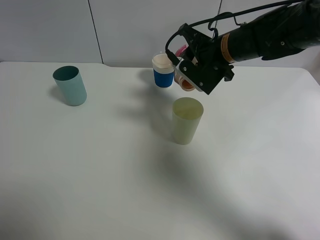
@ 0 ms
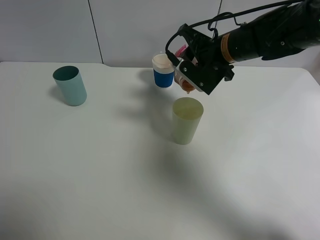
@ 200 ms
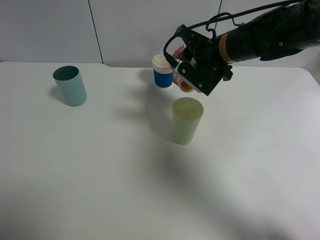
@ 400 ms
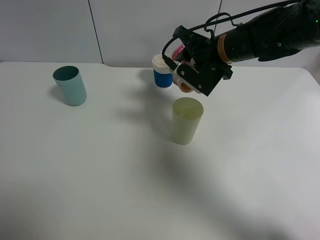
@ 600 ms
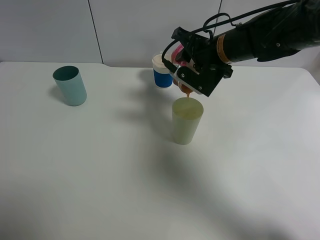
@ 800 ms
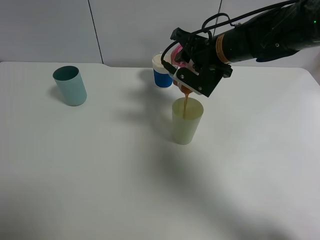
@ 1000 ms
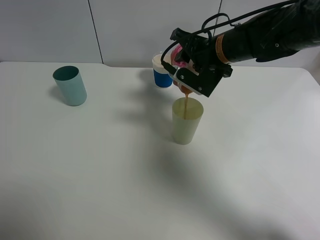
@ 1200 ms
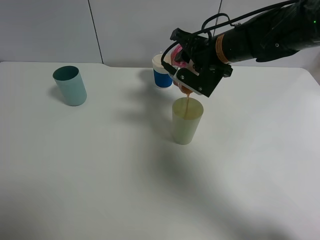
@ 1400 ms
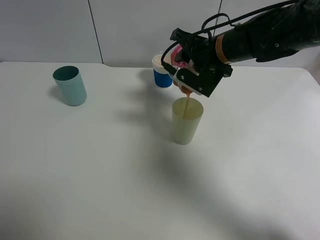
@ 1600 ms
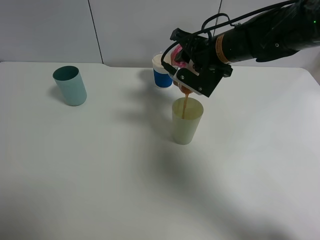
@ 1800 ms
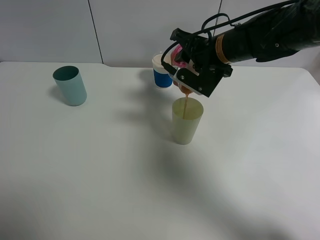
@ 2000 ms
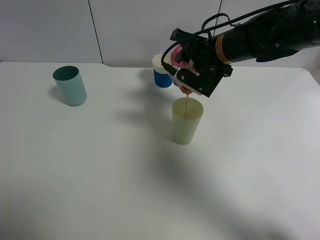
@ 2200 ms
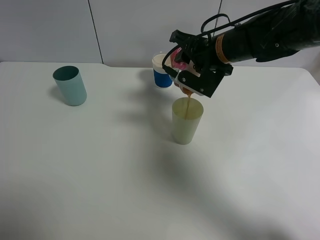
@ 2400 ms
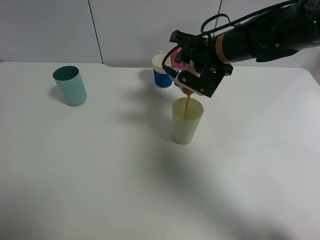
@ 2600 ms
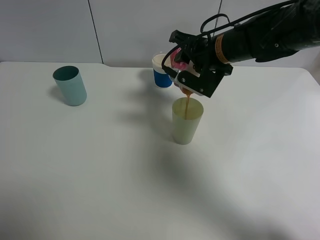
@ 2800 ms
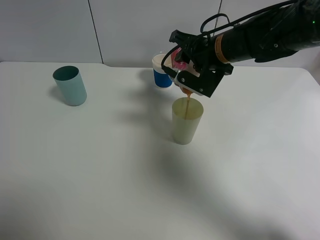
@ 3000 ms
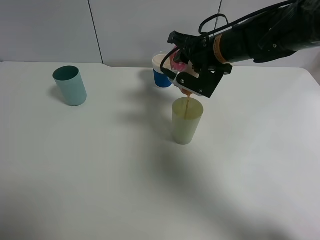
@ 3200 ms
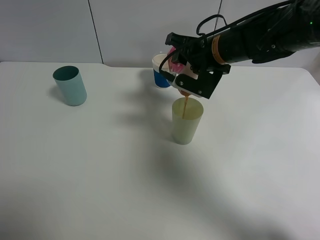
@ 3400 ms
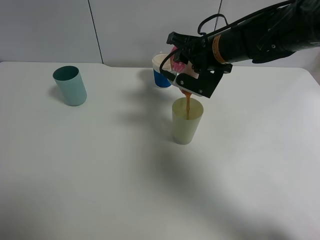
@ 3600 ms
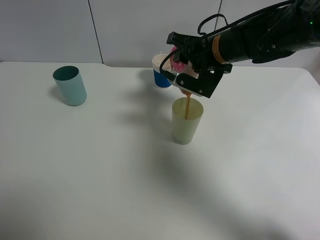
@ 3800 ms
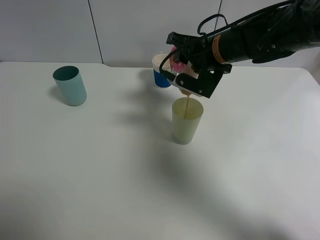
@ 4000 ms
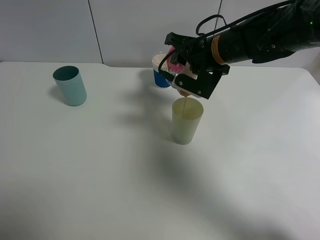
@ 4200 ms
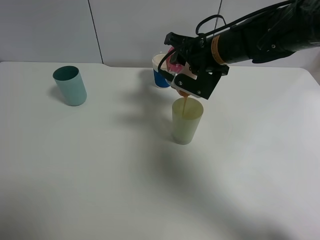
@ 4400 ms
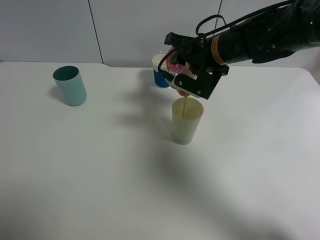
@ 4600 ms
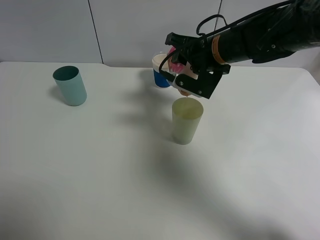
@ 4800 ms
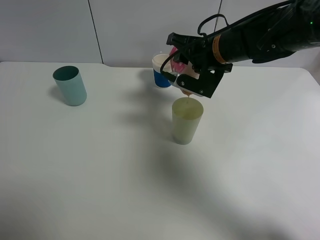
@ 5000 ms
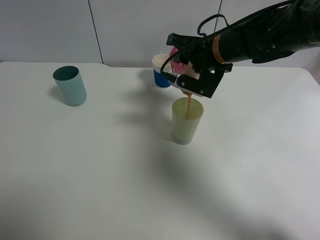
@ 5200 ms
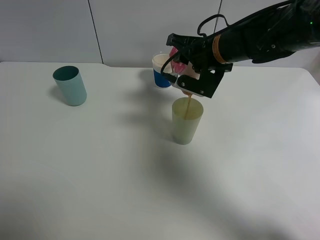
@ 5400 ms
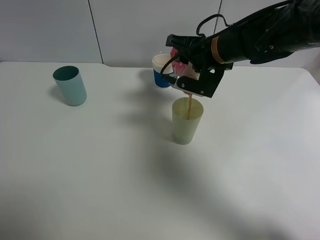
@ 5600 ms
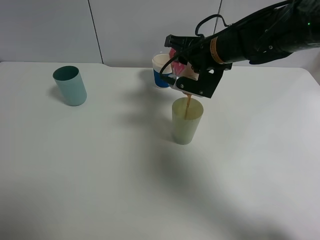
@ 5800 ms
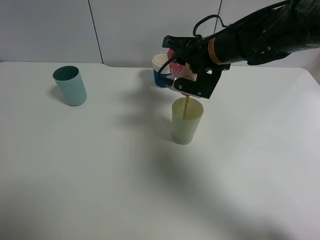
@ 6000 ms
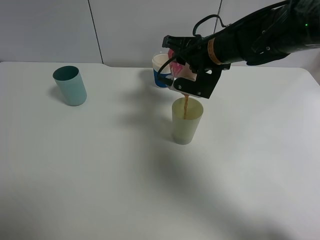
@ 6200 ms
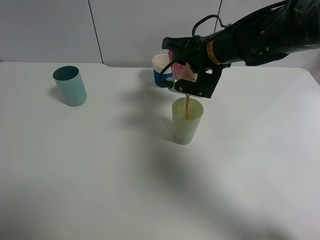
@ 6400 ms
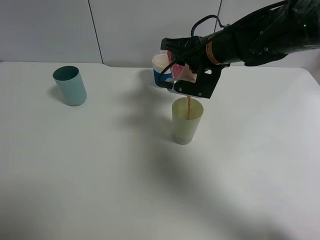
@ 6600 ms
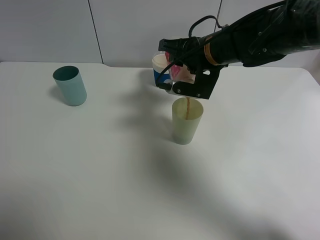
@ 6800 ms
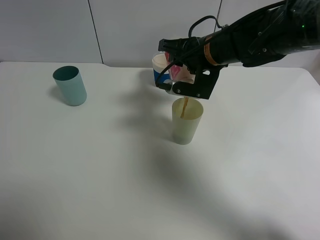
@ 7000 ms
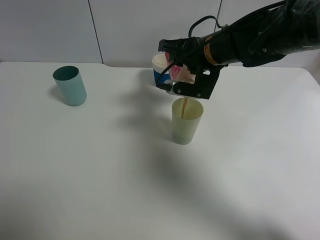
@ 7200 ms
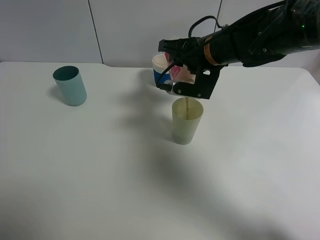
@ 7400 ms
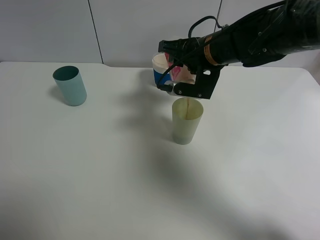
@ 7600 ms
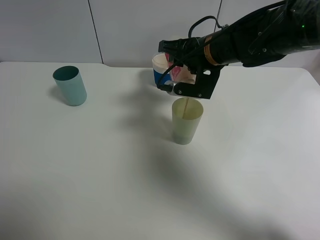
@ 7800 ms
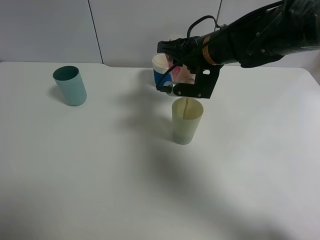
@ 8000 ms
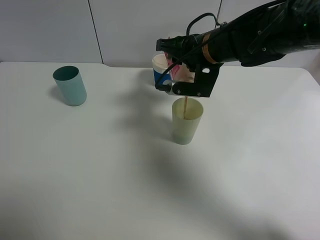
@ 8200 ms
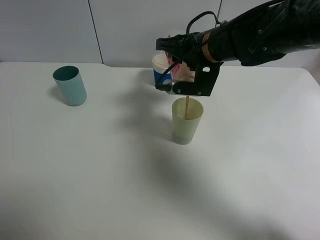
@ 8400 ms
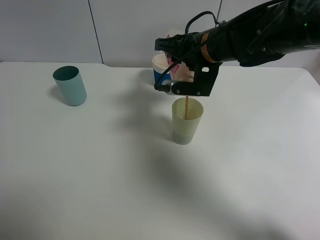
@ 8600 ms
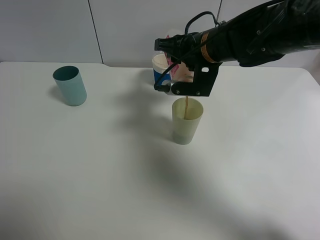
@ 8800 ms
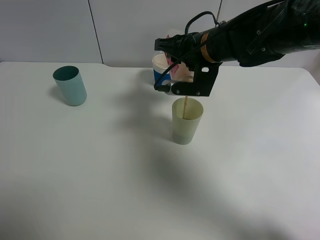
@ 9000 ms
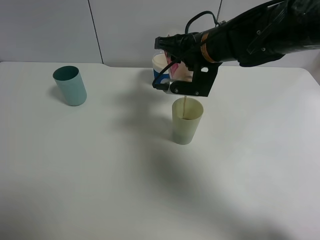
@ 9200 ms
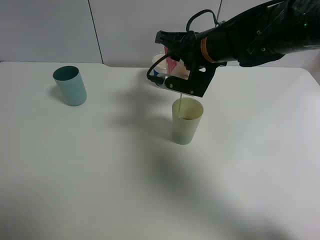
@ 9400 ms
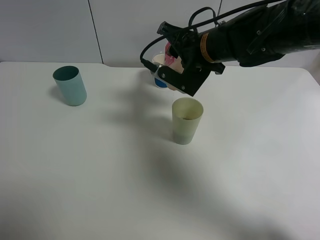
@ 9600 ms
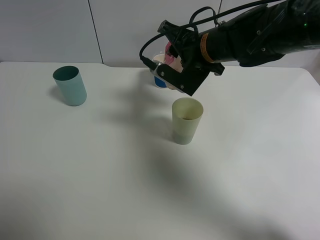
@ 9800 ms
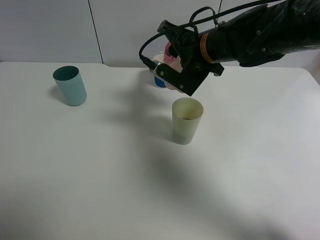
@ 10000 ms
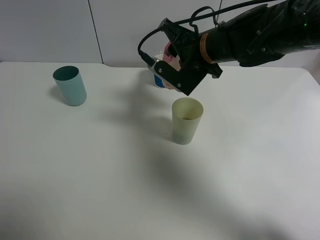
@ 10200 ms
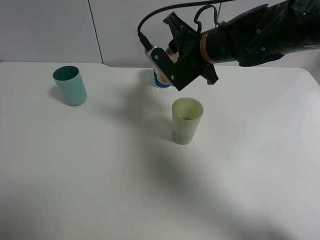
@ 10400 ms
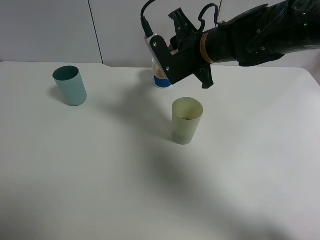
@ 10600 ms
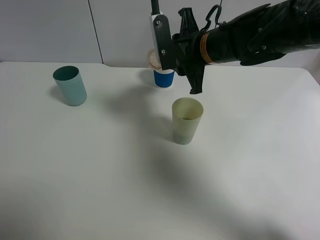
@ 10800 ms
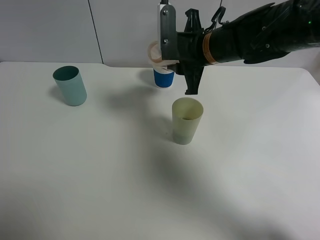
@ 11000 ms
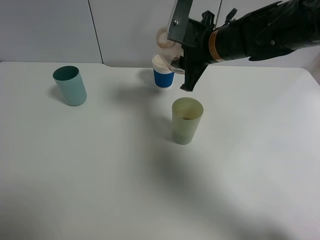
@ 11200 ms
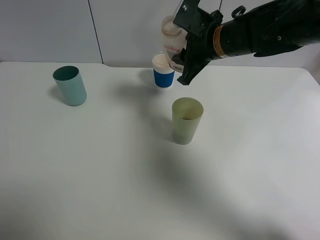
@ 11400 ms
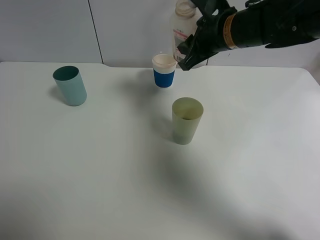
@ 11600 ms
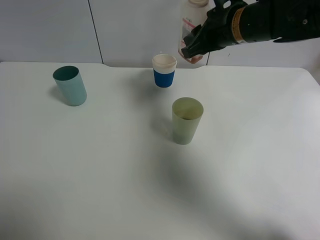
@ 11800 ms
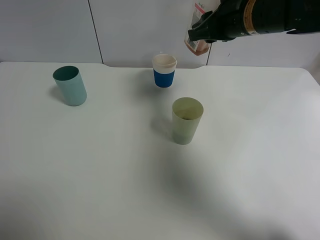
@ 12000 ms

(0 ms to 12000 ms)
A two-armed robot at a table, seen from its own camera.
Task of the whole recording: use a gripper to hold the bottle of the drink and pour it into a random cup.
Step, 0 ms - 9600 ms: Pour the cranberry juice into the cyan cup with the right gripper.
0 ms - 1600 ms: The grippers make only small movements.
1600 ms - 3000 ms: Both grippers stay put.
3000 ms - 4400 ms: The two grippers keep their place.
4400 ms - 9000 ms: The grippers stay close to where they were, moving slightly.
10400 ms - 12000 ms: The right gripper travels to the right and upward by about 10 cm.

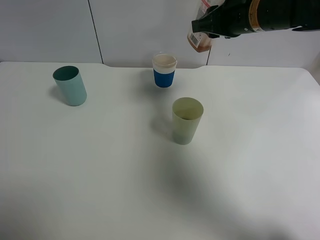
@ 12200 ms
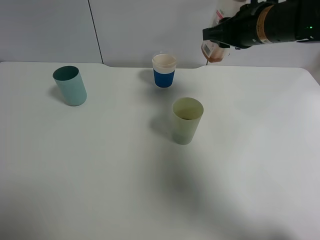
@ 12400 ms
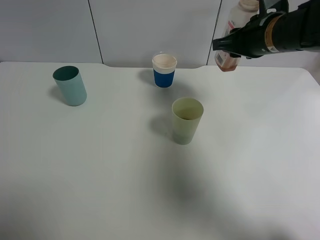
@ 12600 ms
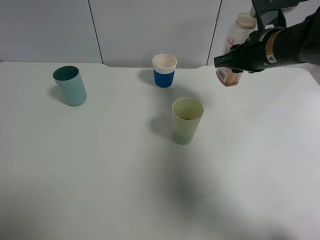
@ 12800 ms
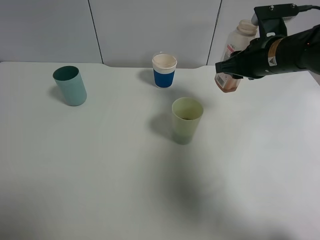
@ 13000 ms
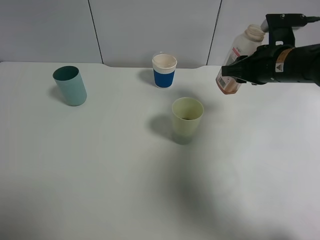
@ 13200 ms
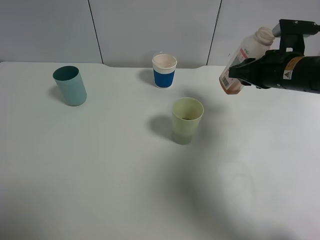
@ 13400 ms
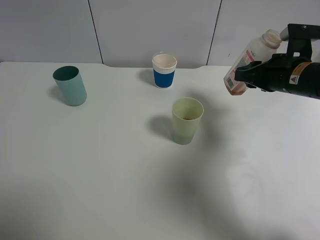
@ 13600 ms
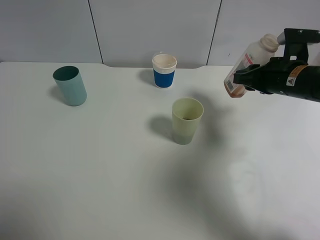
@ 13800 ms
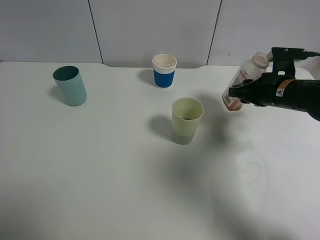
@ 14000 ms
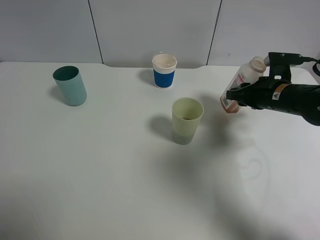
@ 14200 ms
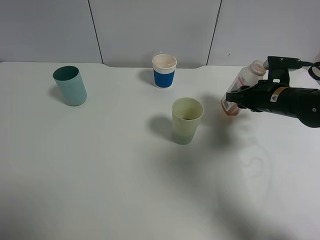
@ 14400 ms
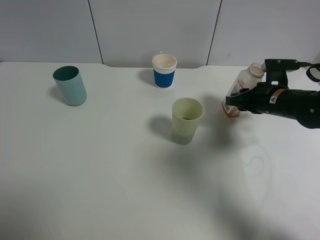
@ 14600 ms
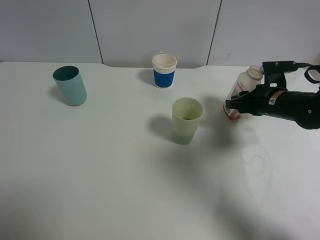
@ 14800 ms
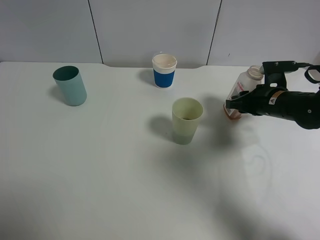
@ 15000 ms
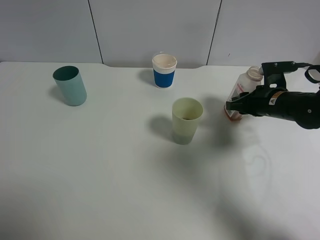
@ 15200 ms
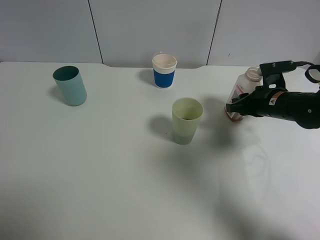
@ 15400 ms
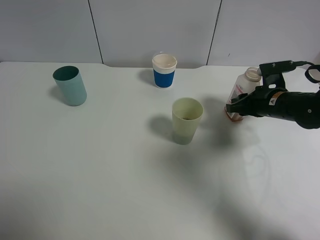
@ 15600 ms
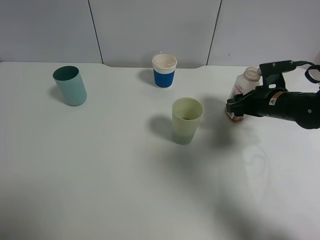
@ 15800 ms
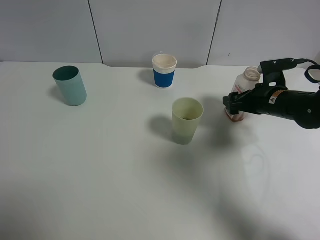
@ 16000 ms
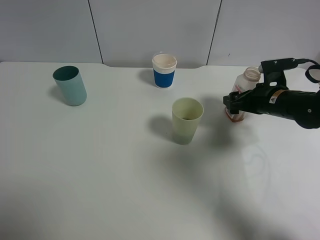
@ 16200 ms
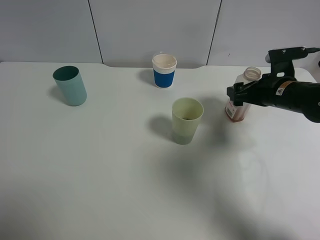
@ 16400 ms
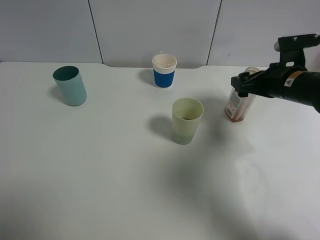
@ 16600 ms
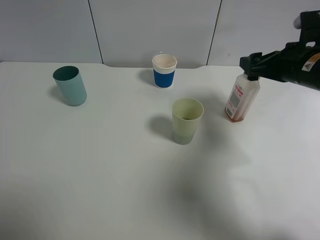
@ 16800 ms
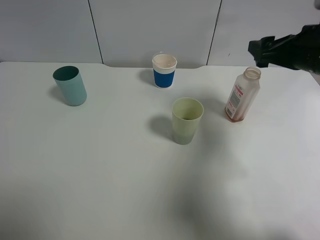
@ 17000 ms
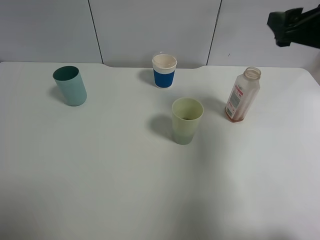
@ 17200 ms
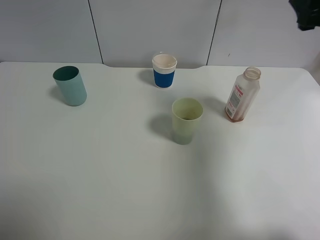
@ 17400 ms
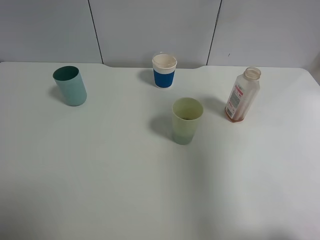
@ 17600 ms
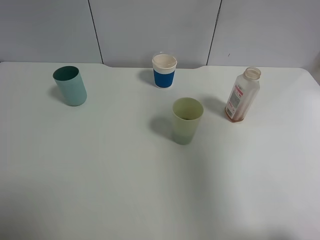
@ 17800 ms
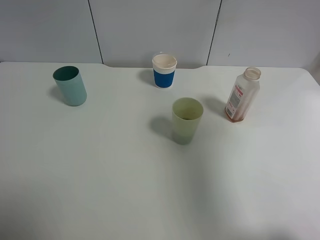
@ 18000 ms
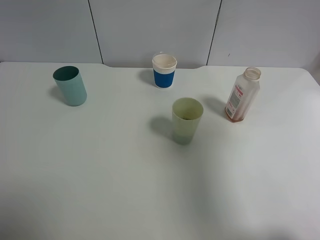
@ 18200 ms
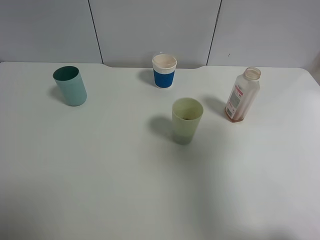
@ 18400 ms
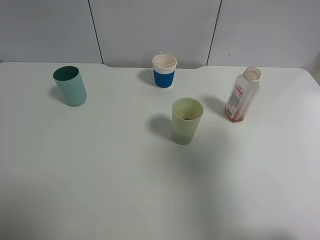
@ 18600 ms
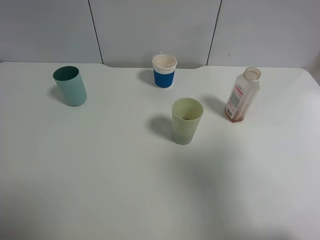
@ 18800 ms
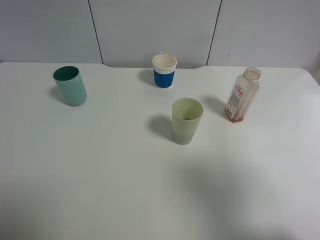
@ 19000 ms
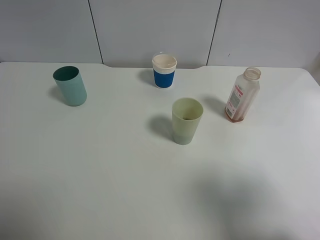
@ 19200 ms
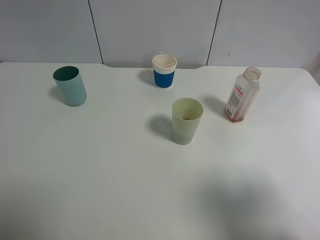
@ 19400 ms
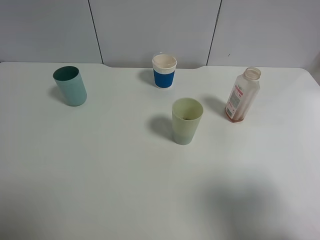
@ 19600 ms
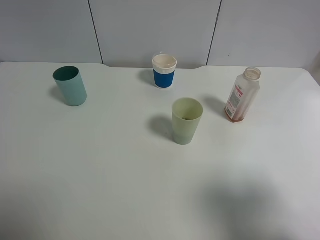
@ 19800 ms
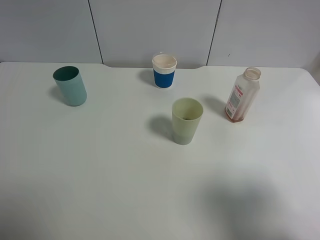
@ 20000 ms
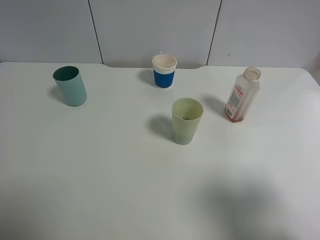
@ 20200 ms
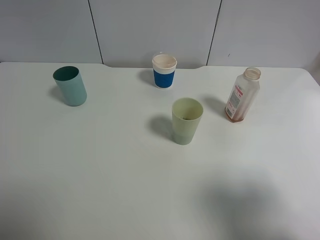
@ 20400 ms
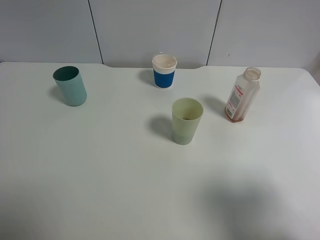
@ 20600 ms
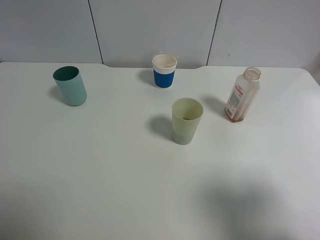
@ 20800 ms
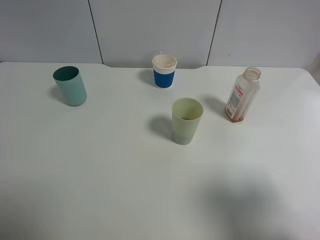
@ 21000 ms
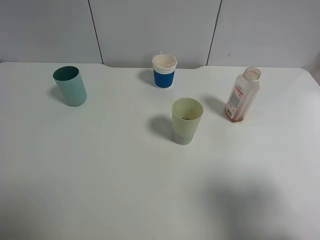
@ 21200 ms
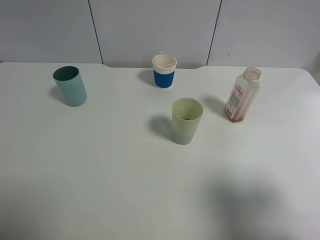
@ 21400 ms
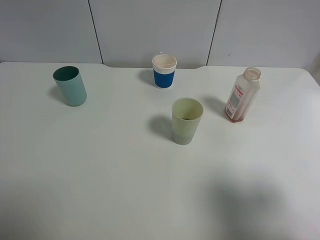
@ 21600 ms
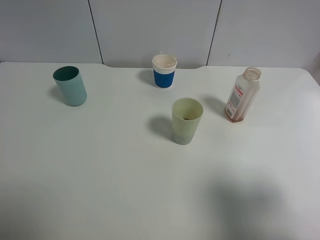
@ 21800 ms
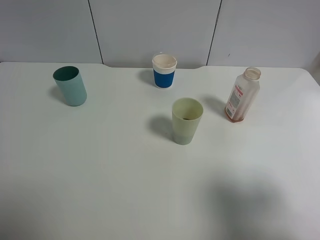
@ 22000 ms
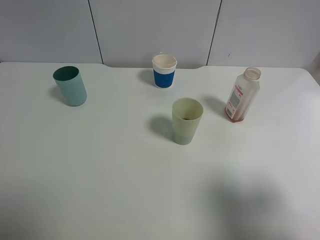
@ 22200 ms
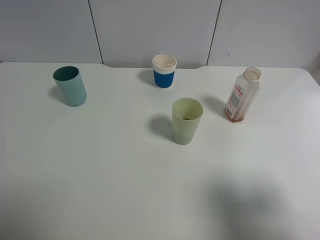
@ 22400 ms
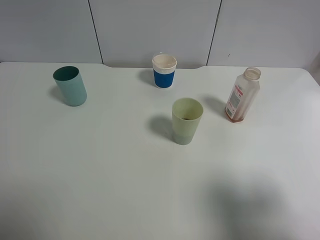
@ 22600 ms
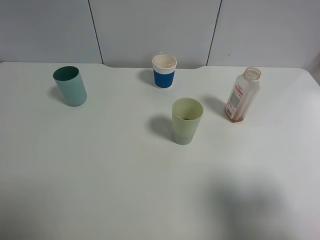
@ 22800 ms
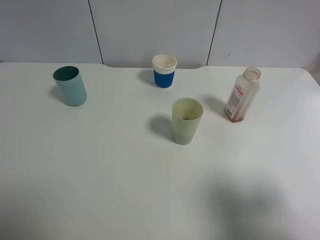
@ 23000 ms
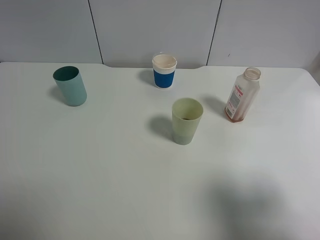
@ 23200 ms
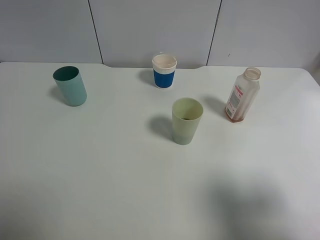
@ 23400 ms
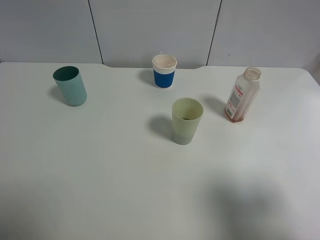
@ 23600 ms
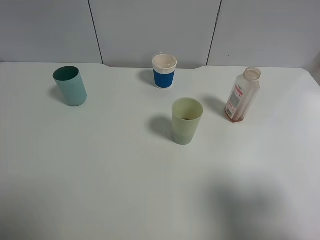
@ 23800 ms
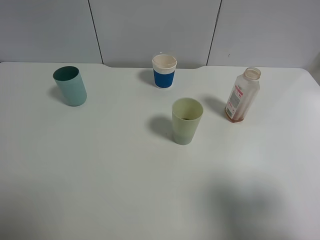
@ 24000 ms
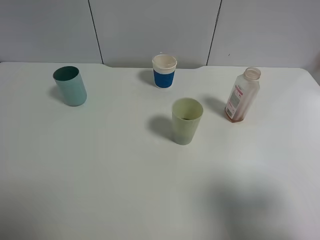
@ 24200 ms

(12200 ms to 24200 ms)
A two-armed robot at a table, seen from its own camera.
Task of the whole recording: use a gripper to hold the bottle of the drink and pour it into a random cup.
Step, 12200 ms - 16200 ms: Place the cranberry juice bottle on the table with the right gripper.
12200 ms - 13800 ms: The right gripper goes approximately 15 cm downward and to the right.
13800 ms - 15200 ms: The right gripper moves downward, approximately 5 cm.
15200 ms - 16600 ms: The right gripper goes about 5 cm upward, and opens its fingers.
16600 ms - 18200 ms: The right gripper goes approximately 25 cm upward and backward.
18200 ms - 19800 ms: The right gripper goes approximately 15 cm backward and downward.
19800 ms - 21200 ms: Both grippers stay put.
22600 ms - 24200 ms: Both grippers stay put.
